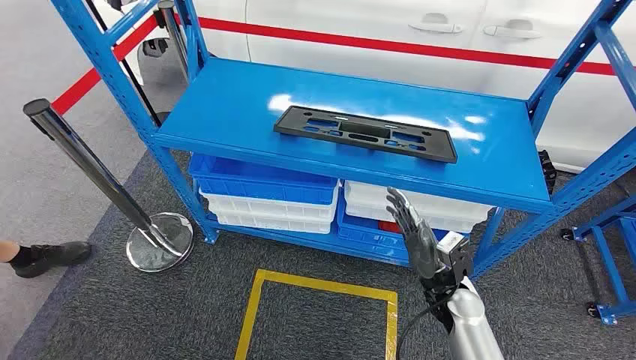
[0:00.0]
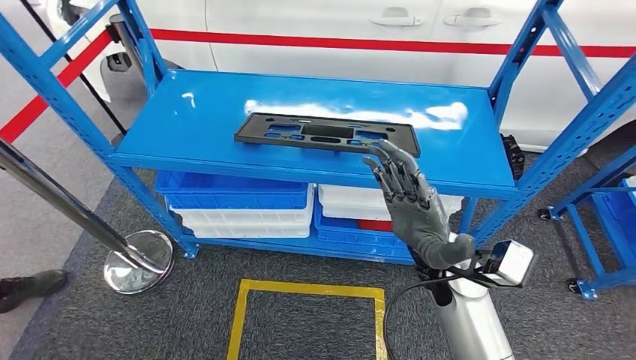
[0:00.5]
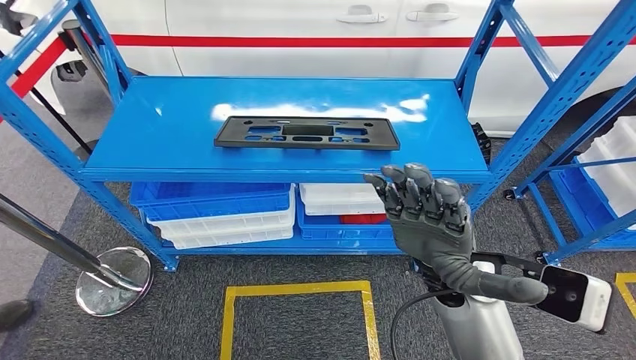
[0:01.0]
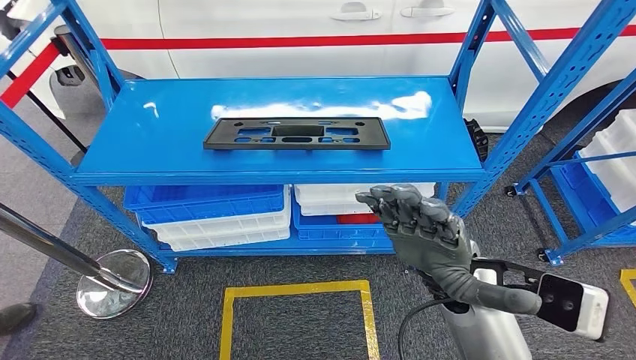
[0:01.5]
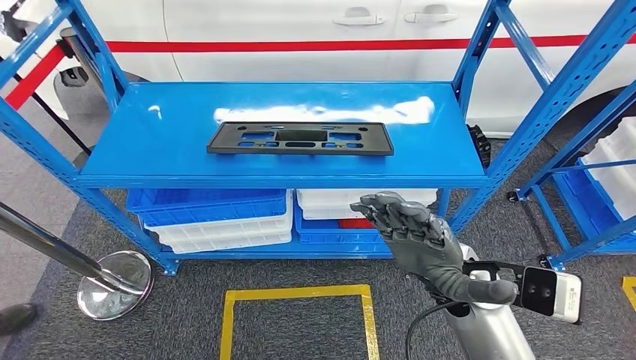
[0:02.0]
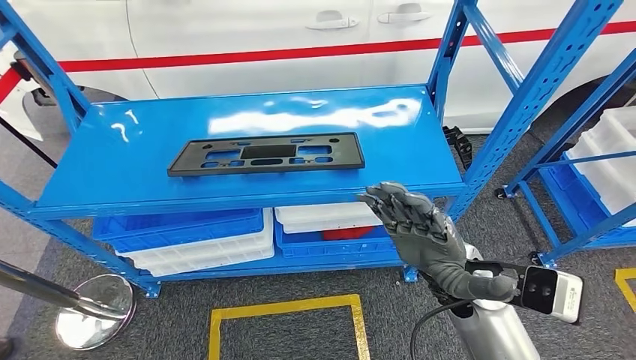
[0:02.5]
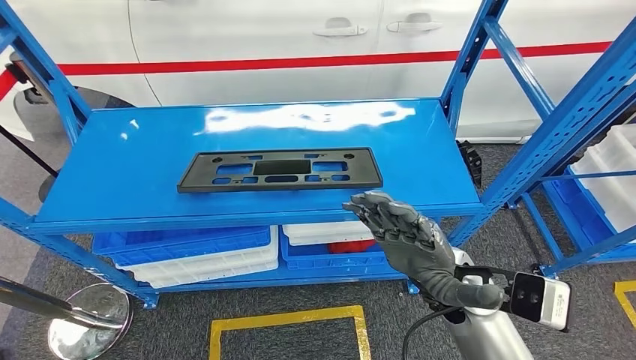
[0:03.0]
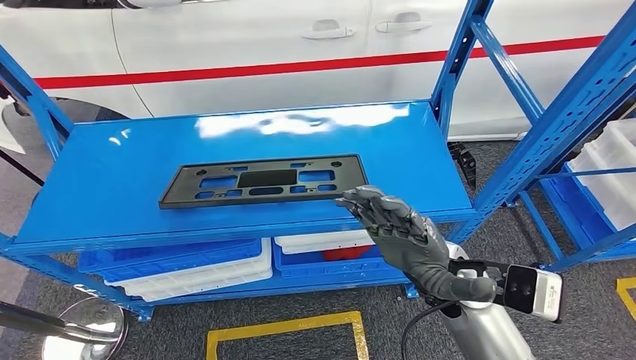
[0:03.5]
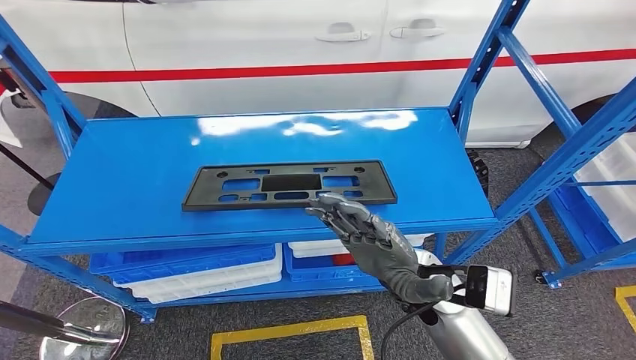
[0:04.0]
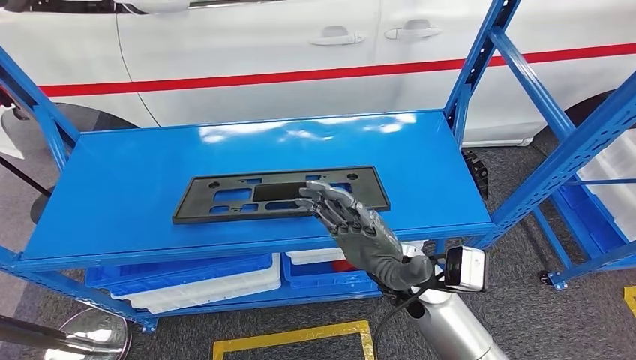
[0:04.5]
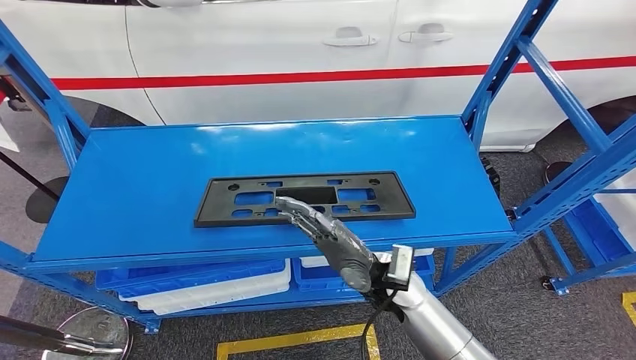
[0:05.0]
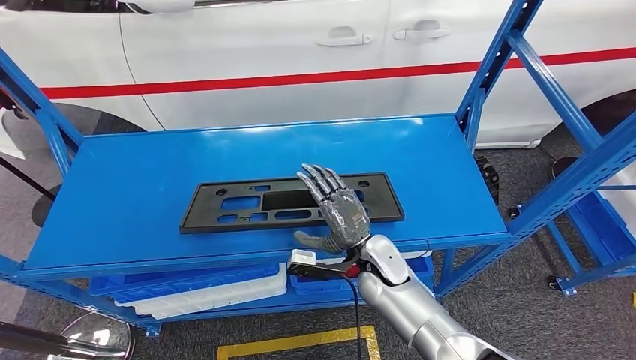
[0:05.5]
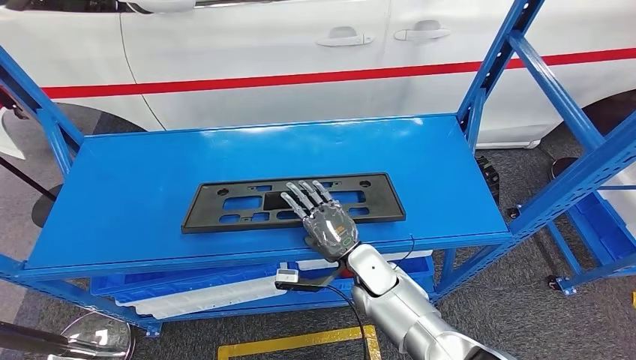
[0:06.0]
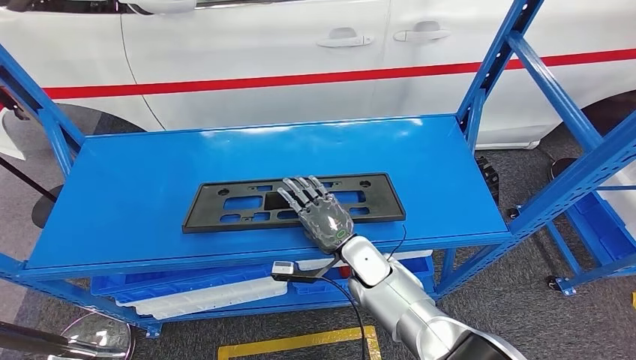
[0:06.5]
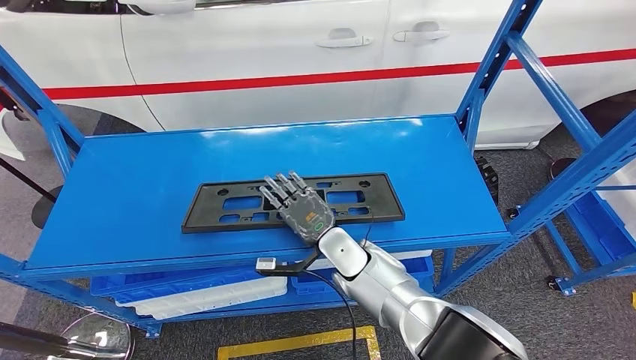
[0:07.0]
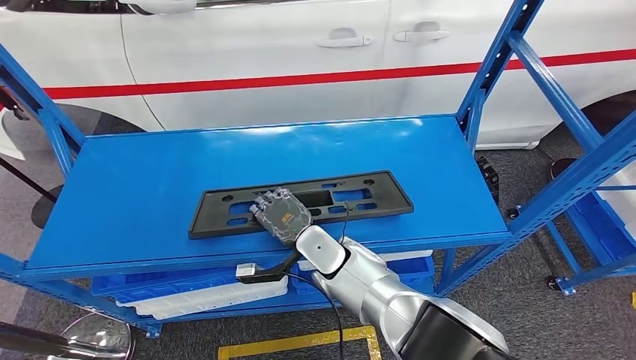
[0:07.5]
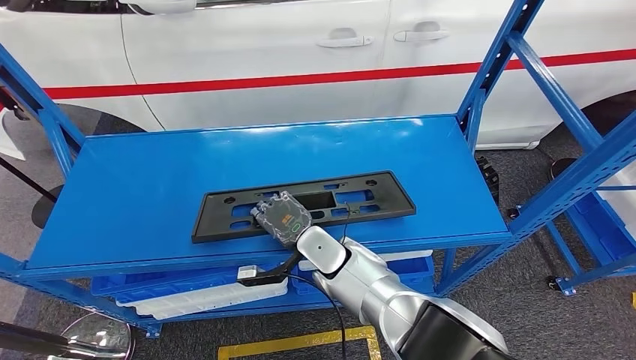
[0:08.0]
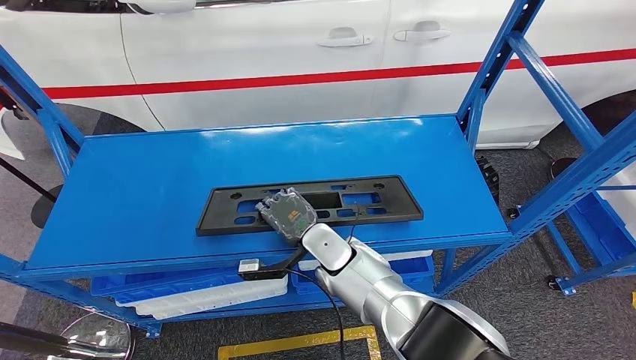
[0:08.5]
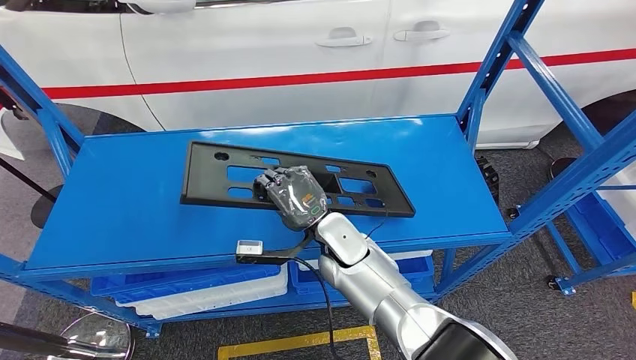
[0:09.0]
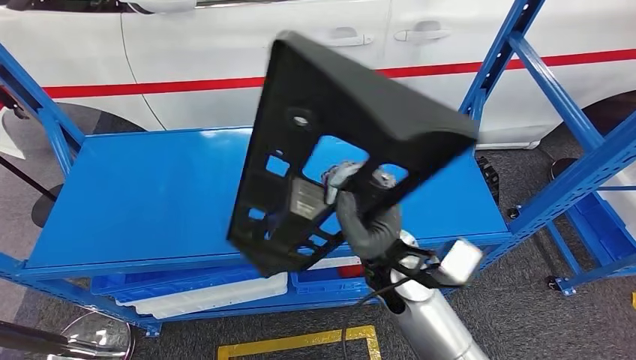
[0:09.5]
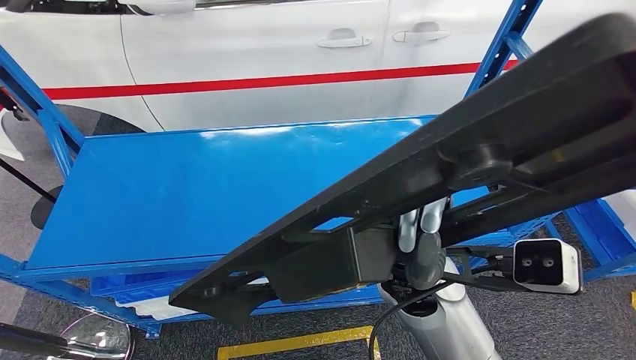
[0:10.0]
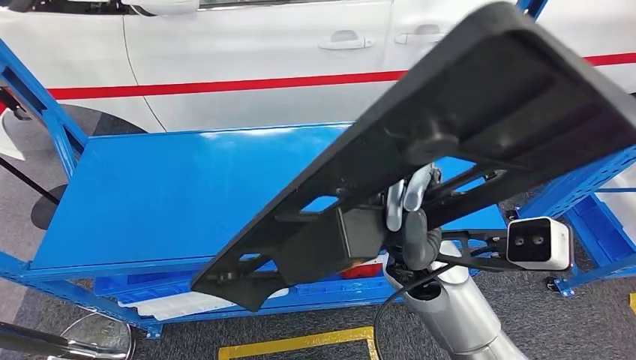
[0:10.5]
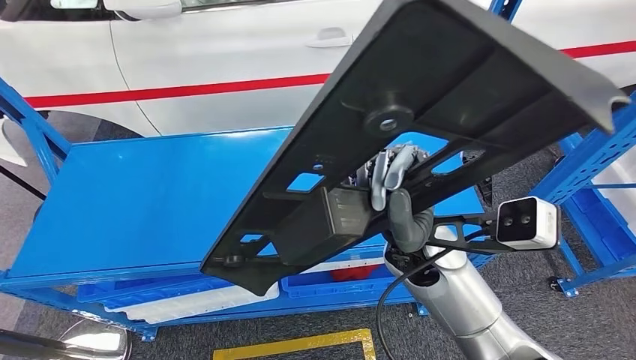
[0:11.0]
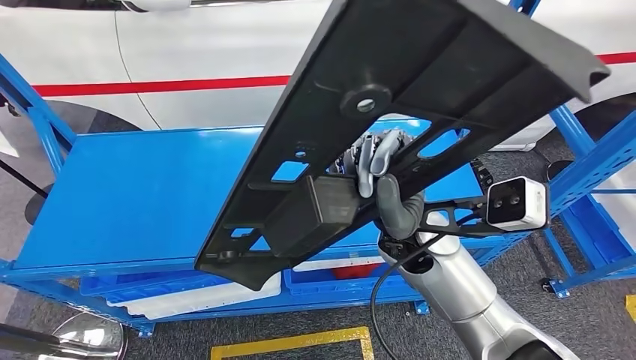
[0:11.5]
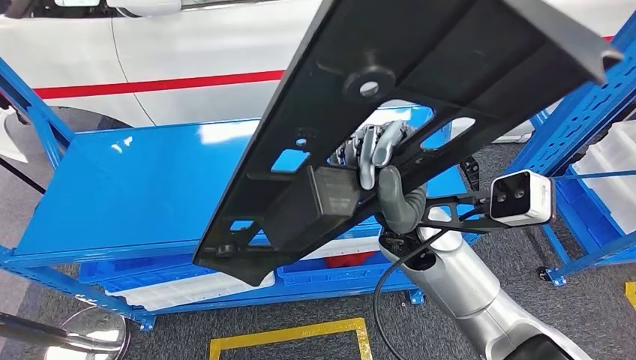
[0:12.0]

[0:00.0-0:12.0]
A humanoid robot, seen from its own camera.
Step, 0:00.0 to 0:10.5: Pick up the large material from the shelf.
0:06.0 to 0:08.0: The right hand heads to the left, covering roughly 10 cm.

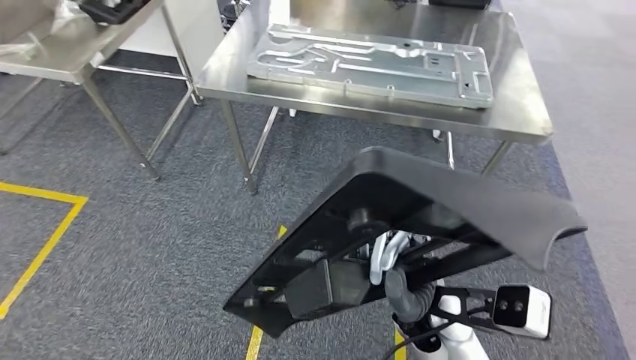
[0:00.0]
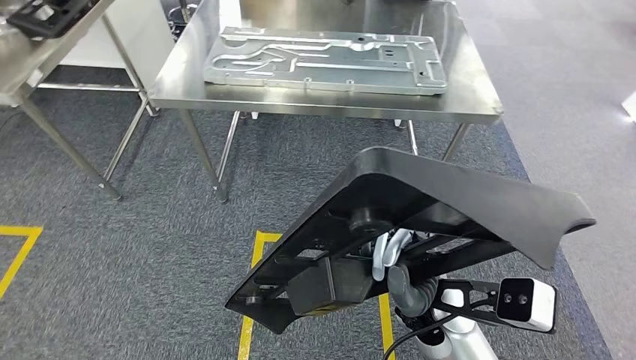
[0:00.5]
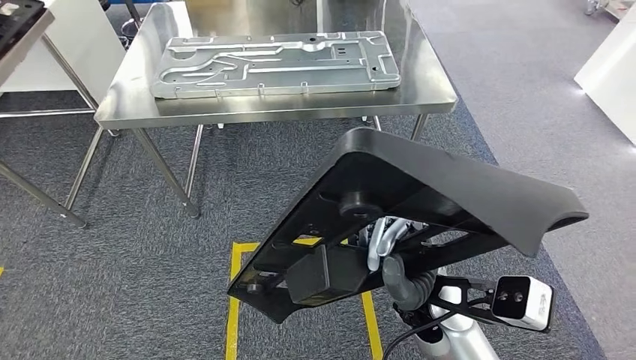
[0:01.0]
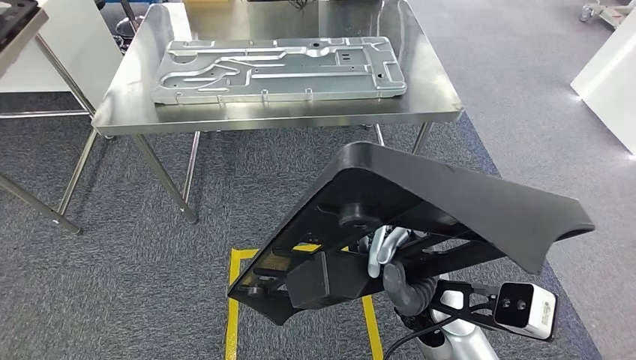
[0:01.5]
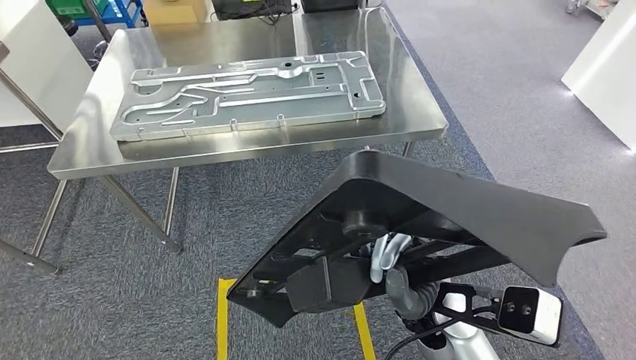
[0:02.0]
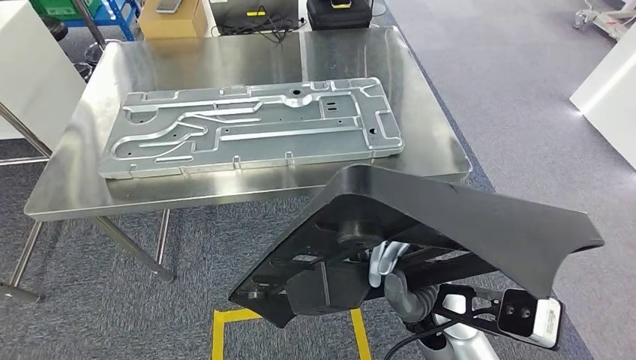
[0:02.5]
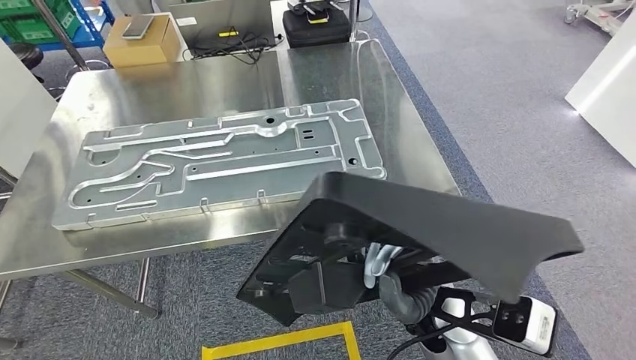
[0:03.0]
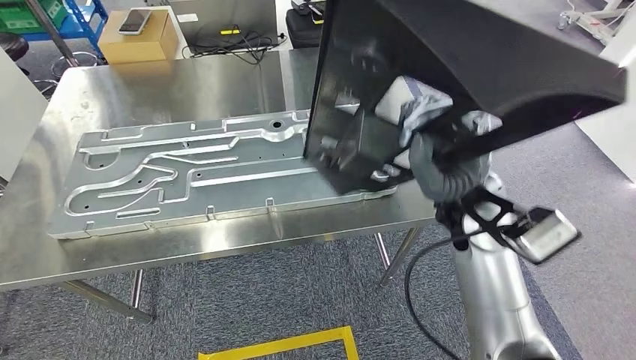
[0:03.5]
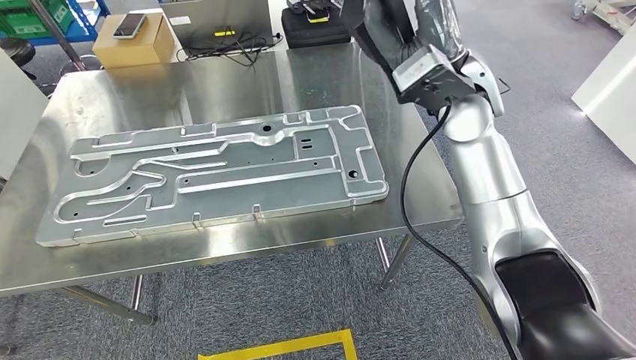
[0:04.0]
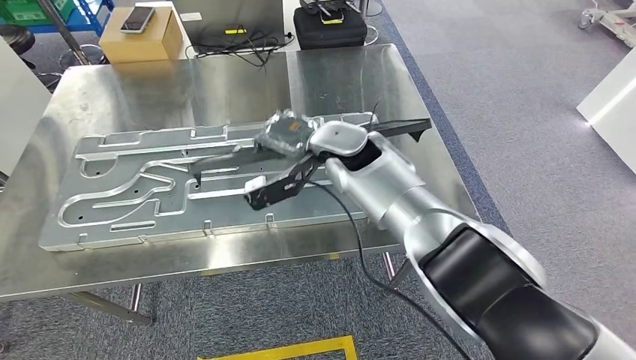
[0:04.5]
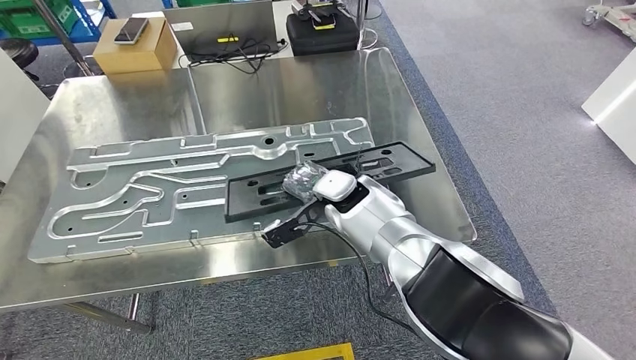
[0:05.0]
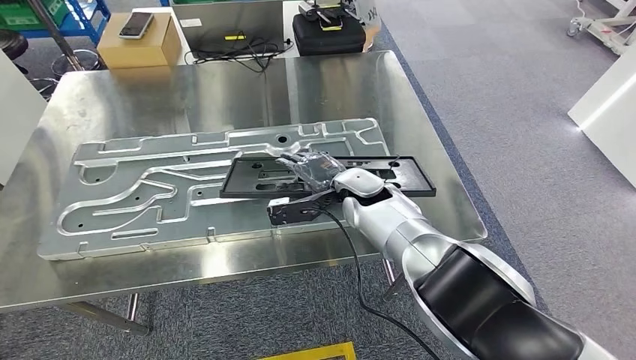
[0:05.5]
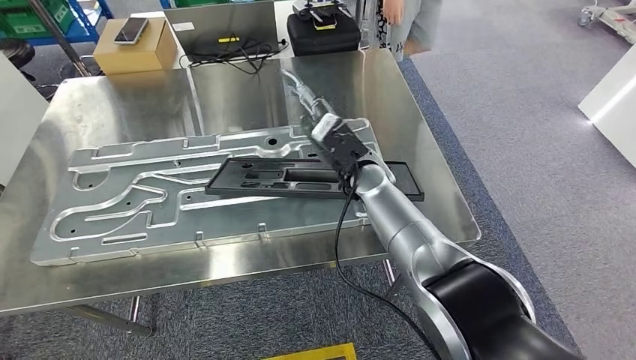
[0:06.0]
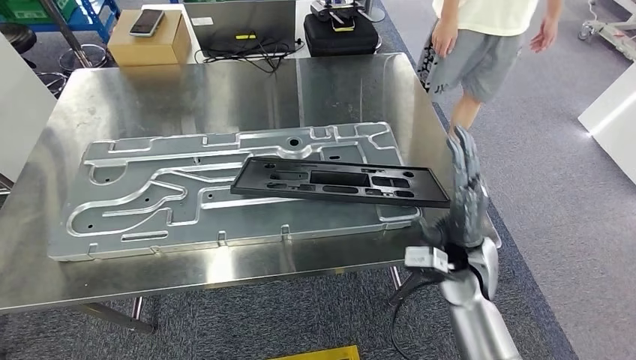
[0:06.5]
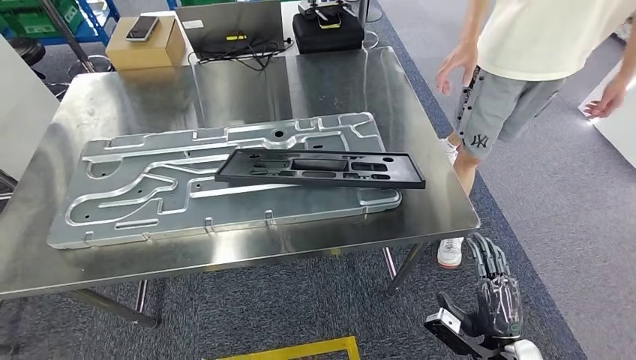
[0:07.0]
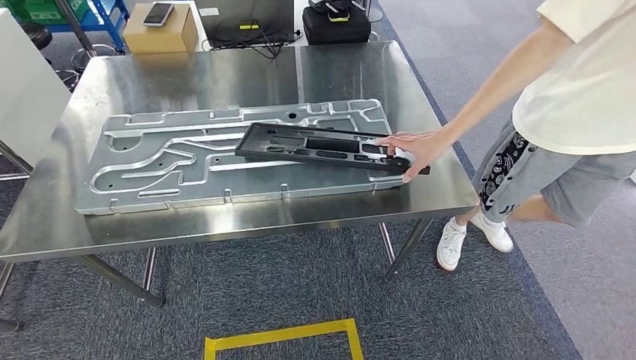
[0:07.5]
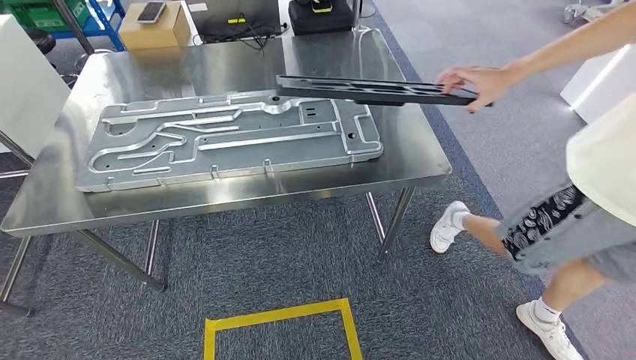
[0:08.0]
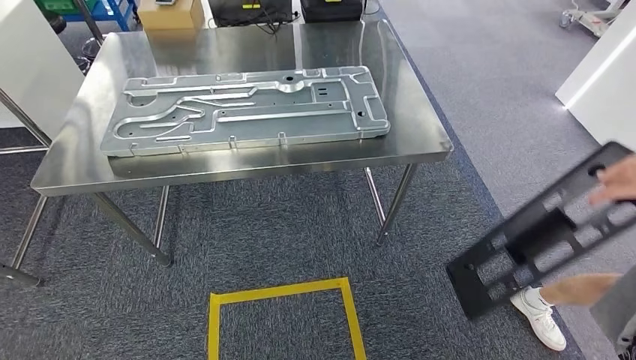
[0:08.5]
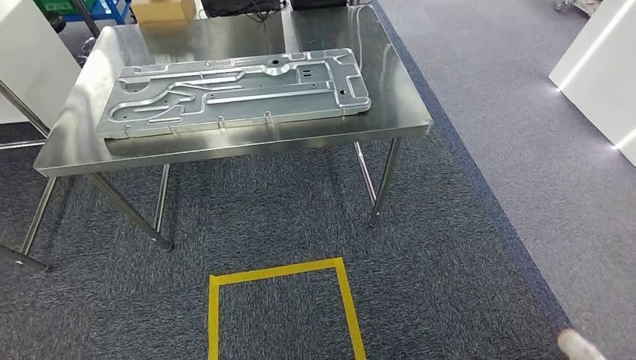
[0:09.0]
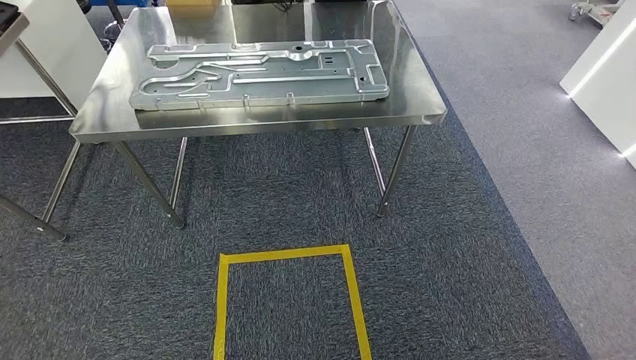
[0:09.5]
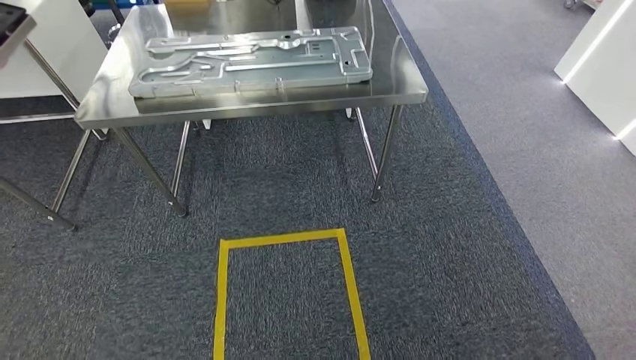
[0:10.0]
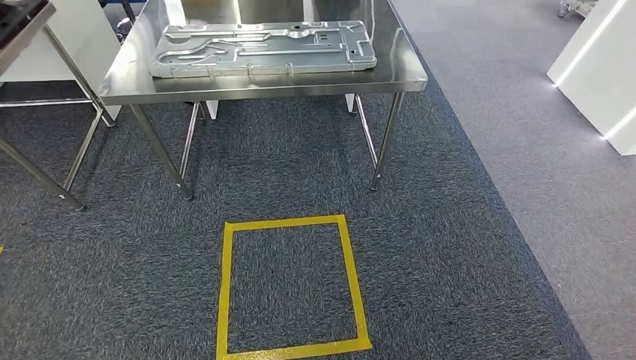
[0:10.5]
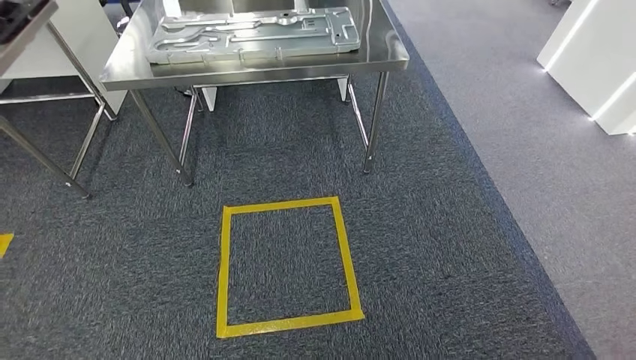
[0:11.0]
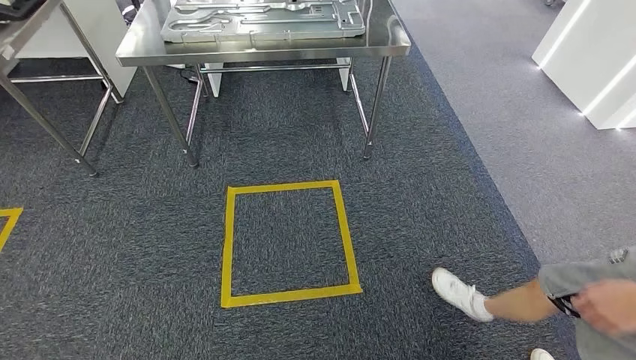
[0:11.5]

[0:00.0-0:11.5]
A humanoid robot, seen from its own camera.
Step, 0:02.0 to 0:06.5: Insert the large material into the corresponding slot on the workbench.